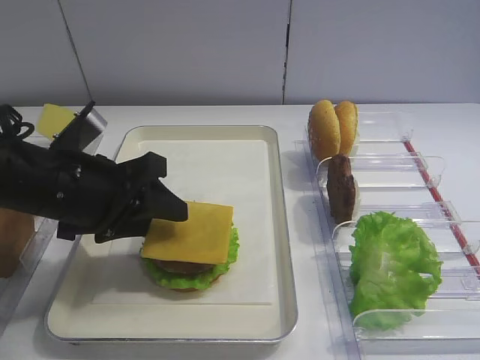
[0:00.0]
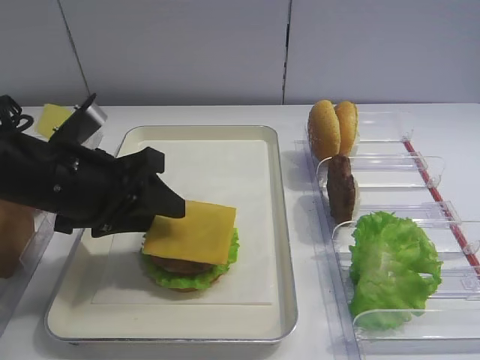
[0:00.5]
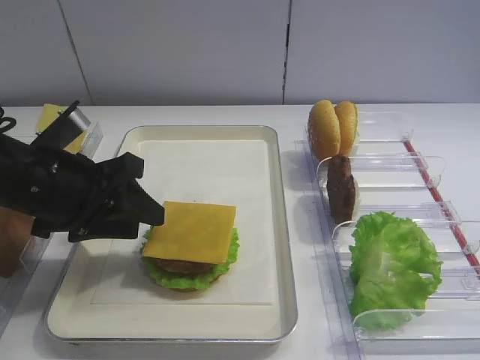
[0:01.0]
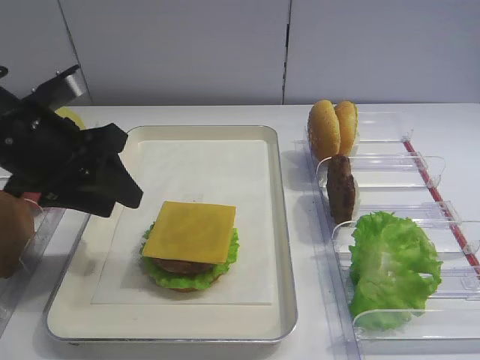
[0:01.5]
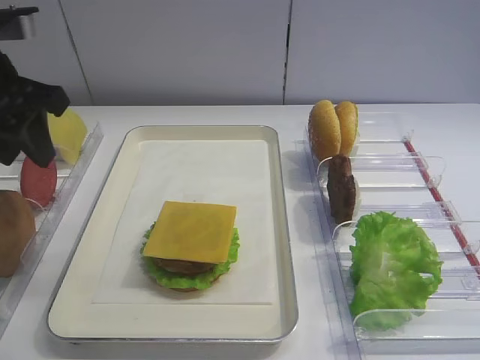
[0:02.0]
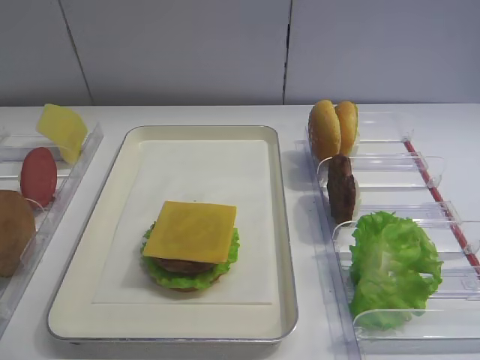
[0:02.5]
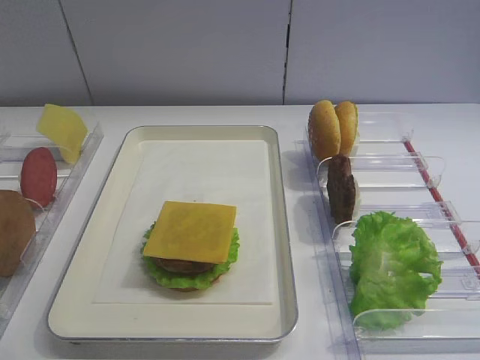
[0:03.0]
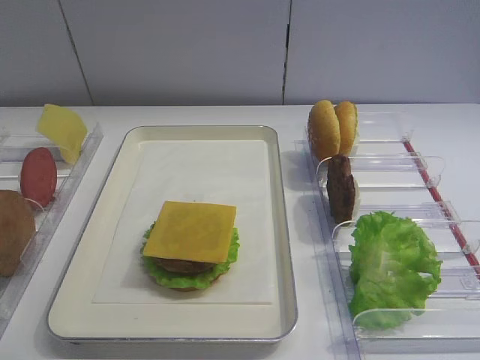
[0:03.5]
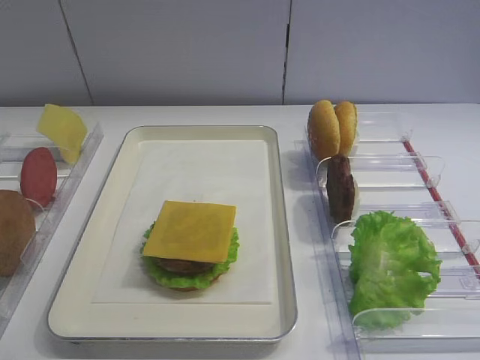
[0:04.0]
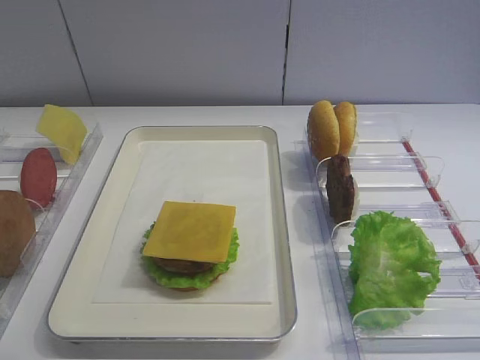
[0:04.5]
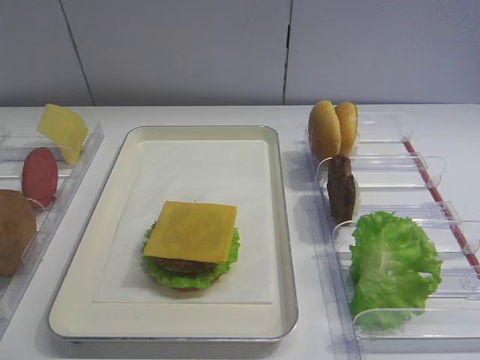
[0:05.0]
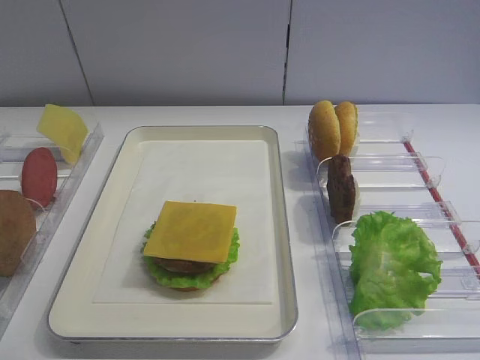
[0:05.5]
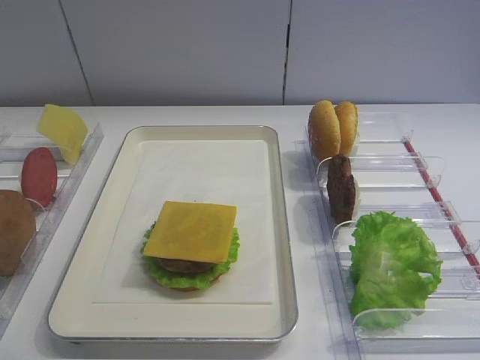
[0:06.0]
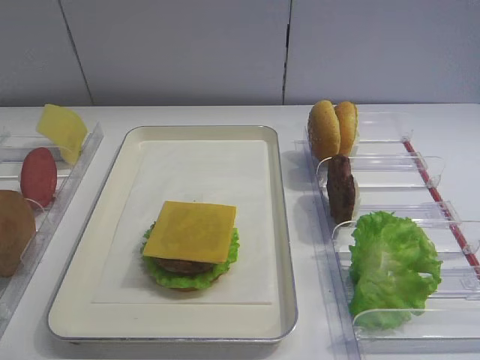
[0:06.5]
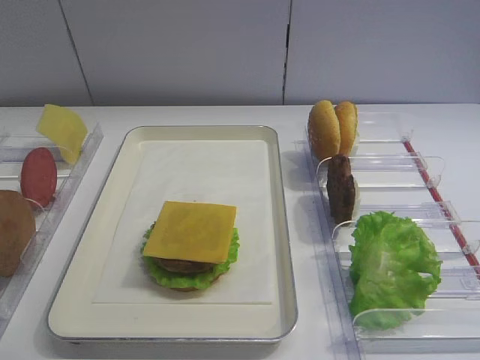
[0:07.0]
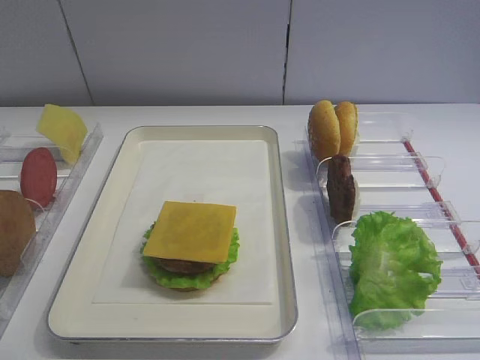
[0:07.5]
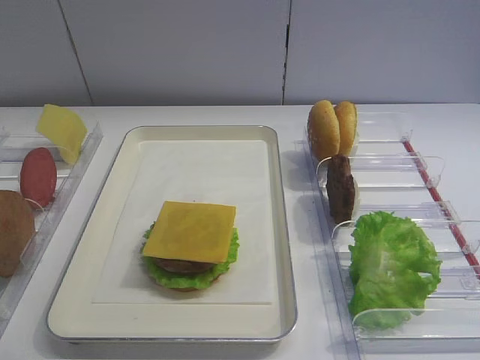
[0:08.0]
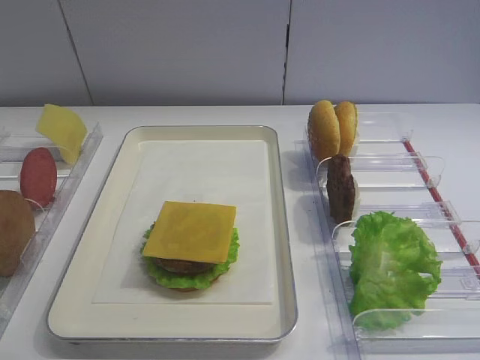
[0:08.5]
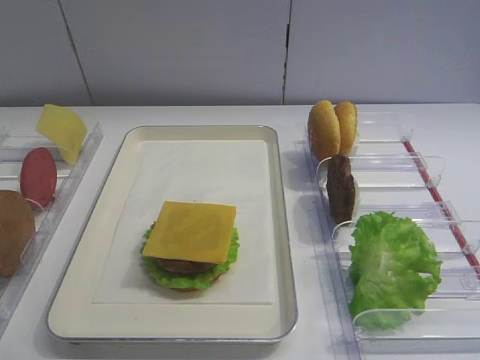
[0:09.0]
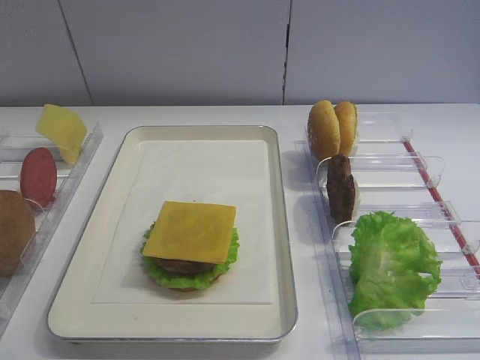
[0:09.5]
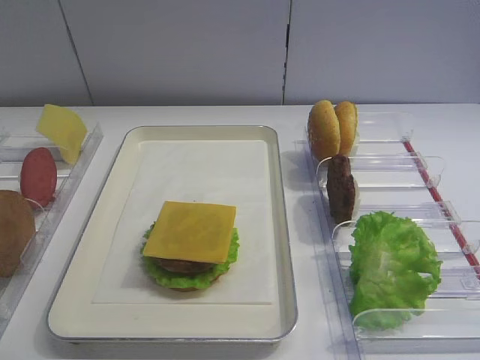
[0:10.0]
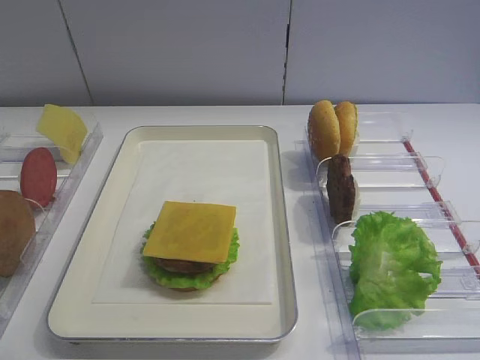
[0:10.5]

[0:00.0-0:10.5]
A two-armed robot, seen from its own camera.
0:00.0 to 0:02.0: The left gripper heads upward and to the left, covering roughly 15 cm.
0:02.0 to 0:04.0: The left gripper is displaced backward by approximately 30 cm, and closes up.
0:06.5 to 0:08.5: Both grippers stay put.

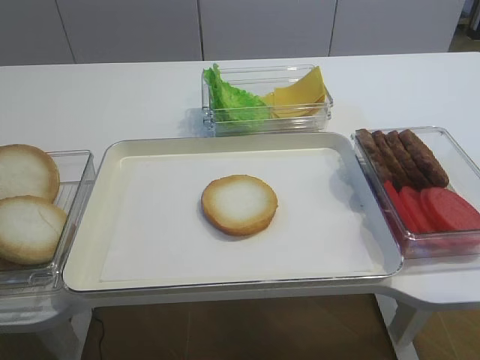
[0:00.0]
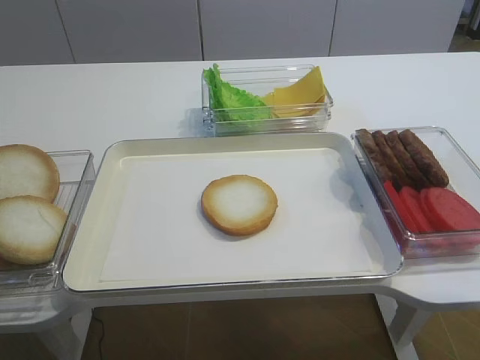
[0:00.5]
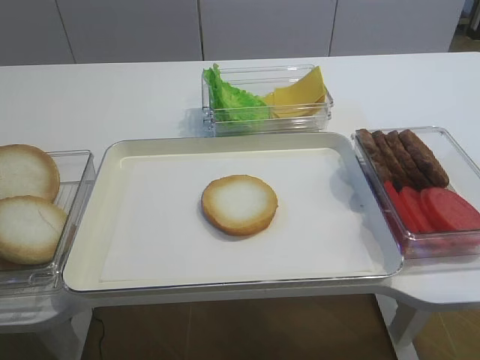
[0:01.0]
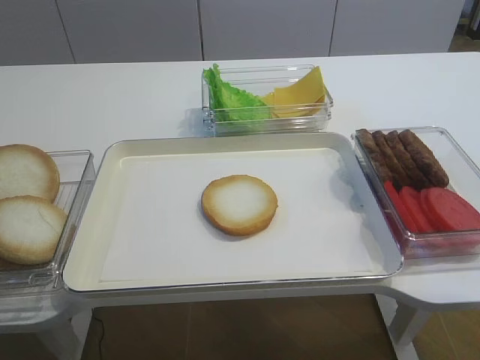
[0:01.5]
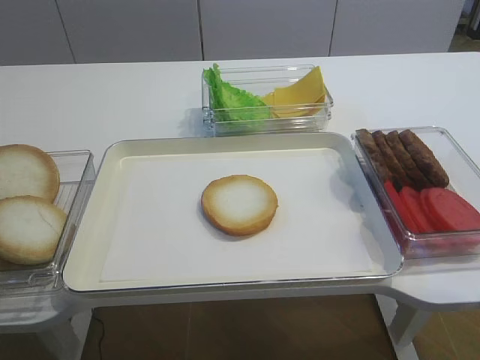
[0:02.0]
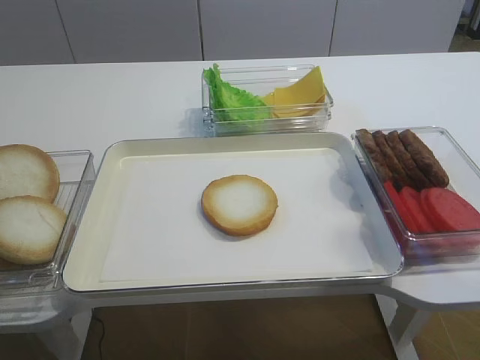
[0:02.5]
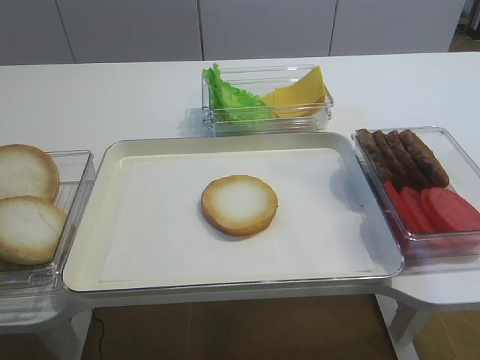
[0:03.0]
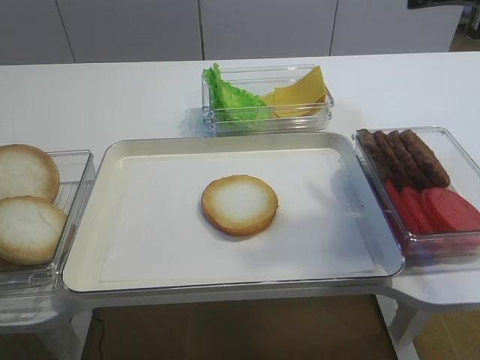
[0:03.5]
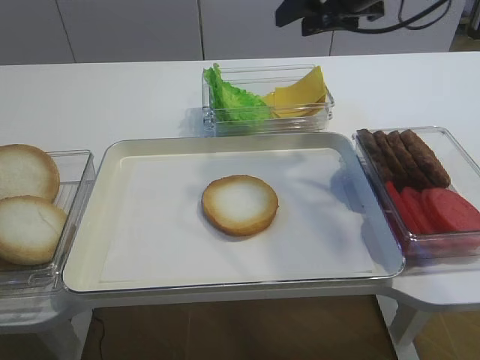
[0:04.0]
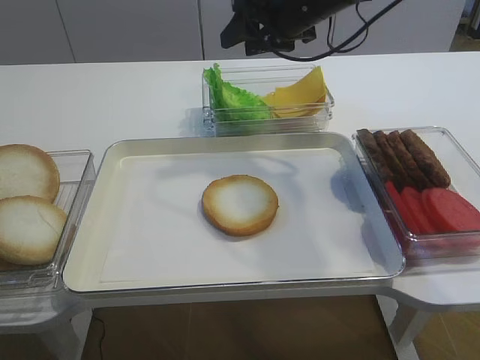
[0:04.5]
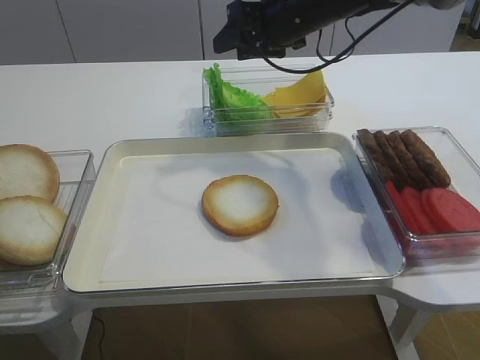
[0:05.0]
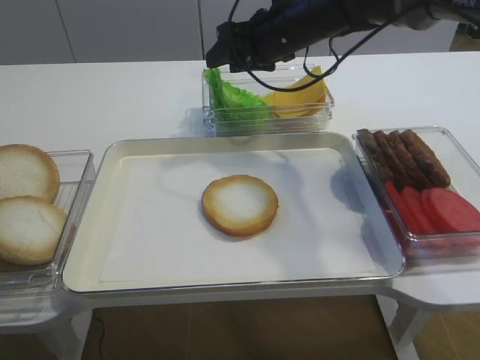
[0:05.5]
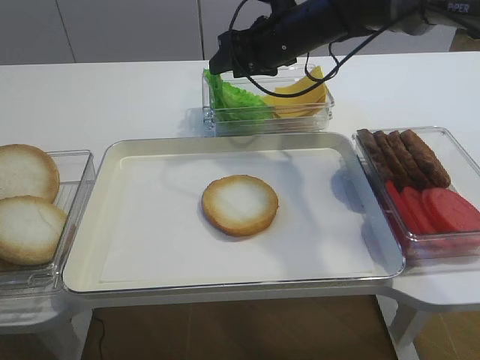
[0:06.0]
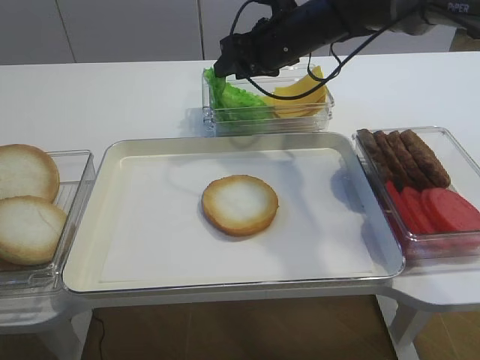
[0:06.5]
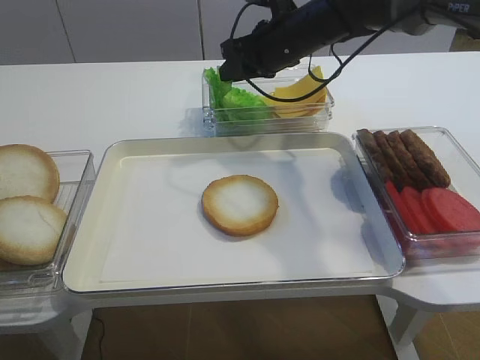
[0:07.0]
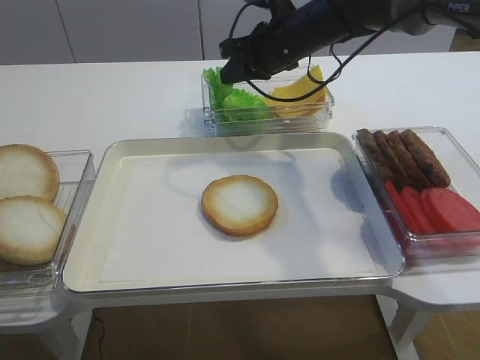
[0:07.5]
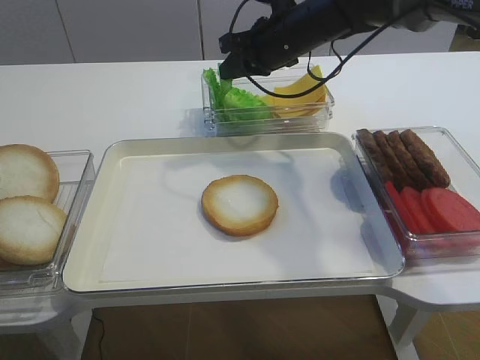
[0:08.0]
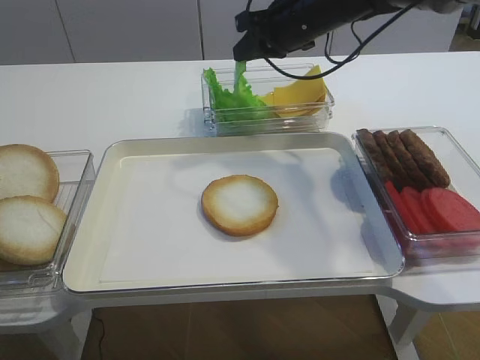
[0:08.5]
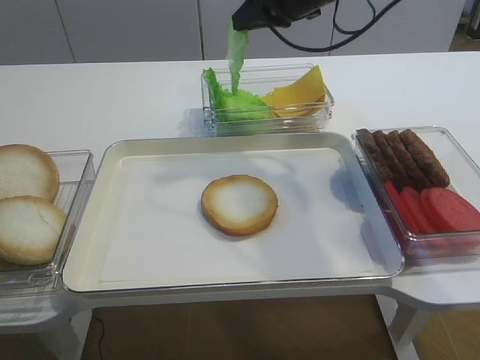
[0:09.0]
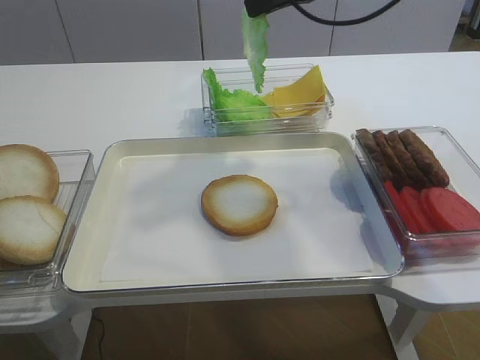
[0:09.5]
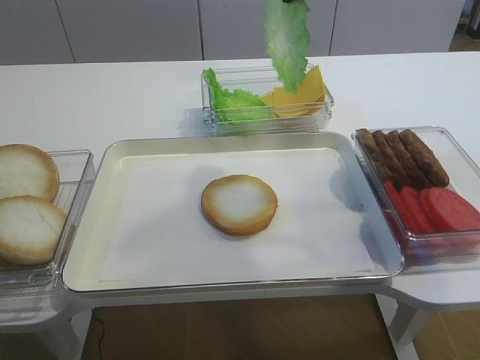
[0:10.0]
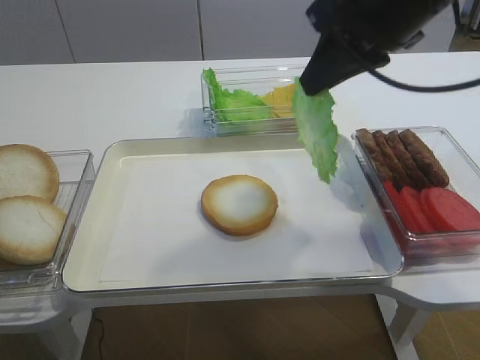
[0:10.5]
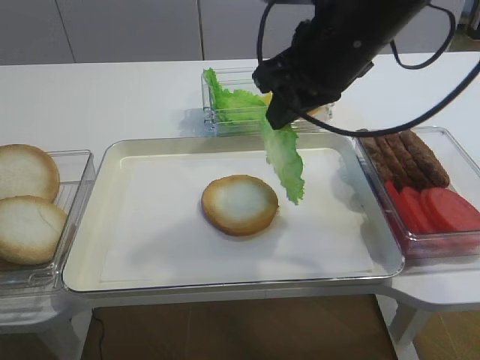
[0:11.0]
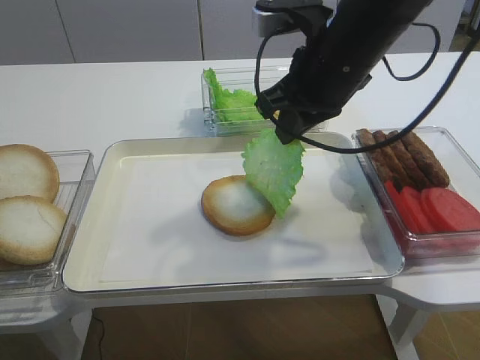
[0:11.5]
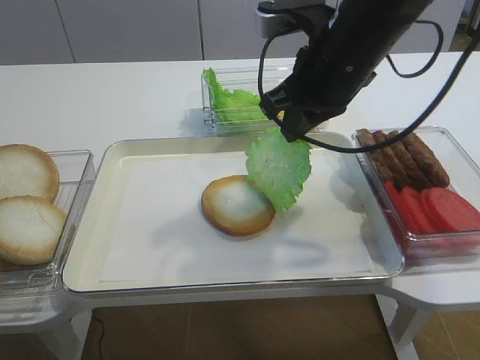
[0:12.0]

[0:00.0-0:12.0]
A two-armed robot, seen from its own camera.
Step, 0:00.0 to 0:09.0: Pick up the lettuce leaf with the right gripper.
0:02.0 to 0:04.0: The right gripper shifts about 40 cm forward.
0:04.0 to 0:06.0: The right gripper is displaced downward, to the left and forward by roughly 15 cm.
0:06.0 to 0:08.0: The right gripper closes up.
0:08.0 to 0:10.0: The right gripper moves upward and backward, about 20 cm.
0:10.0 to 0:12.0: The right gripper heads downward, covering approximately 10 cm.

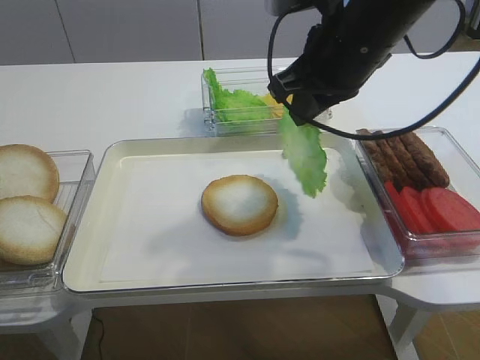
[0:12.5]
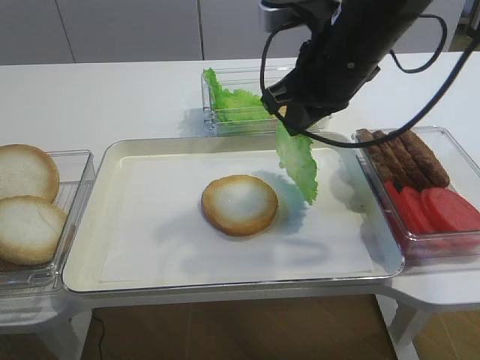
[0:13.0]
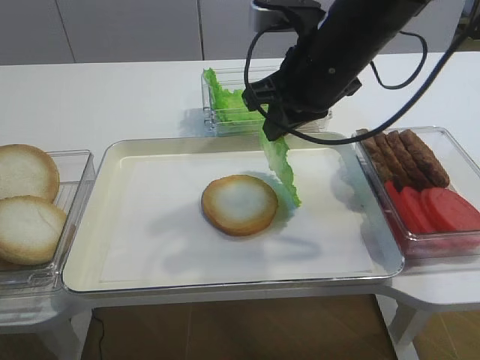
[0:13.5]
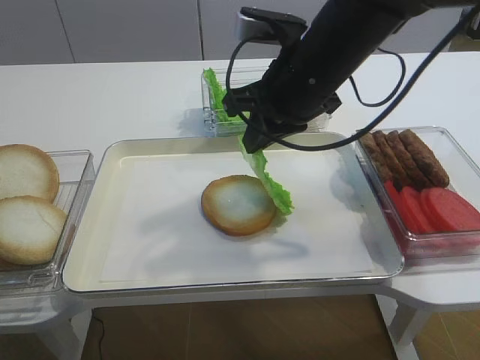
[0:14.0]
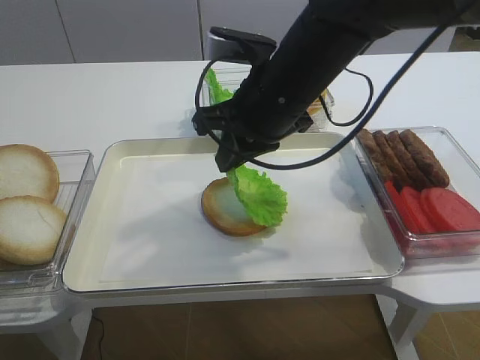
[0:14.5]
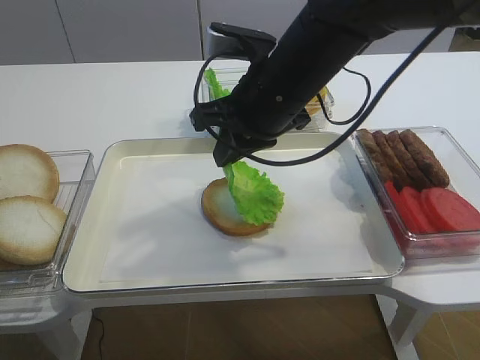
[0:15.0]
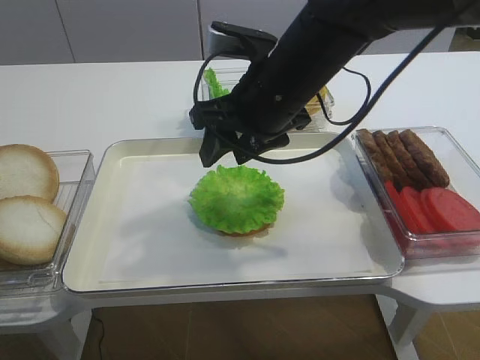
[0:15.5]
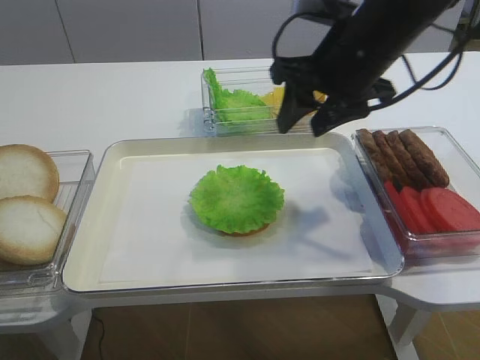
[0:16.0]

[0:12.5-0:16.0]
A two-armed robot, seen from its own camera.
Step, 0:12.5 to 0:15.0: Place the lettuce leaf on the bread slice with the right gripper.
0:12.5 to 0:14.5: The right gripper shifts roughly 5 cm to the left.
0:14.5 to 0:16.0: The right gripper shifts approximately 5 cm to the right, and opens its fingers.
